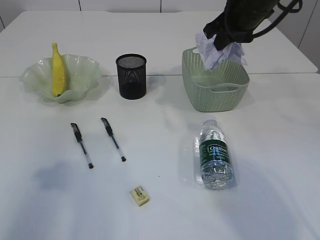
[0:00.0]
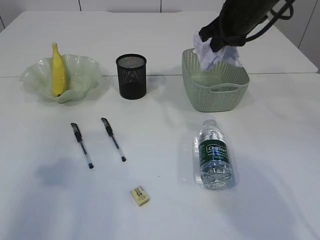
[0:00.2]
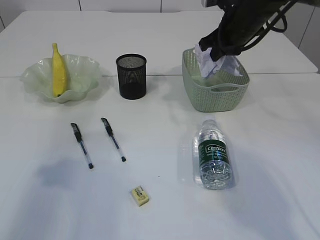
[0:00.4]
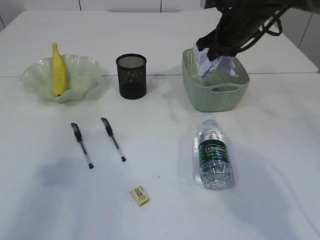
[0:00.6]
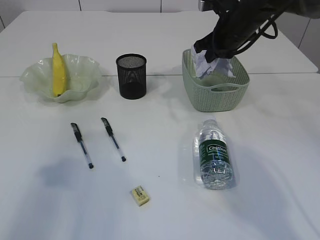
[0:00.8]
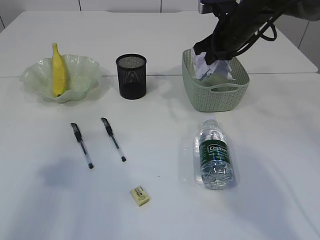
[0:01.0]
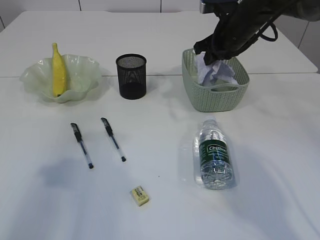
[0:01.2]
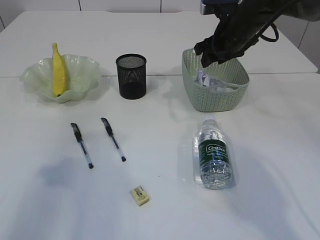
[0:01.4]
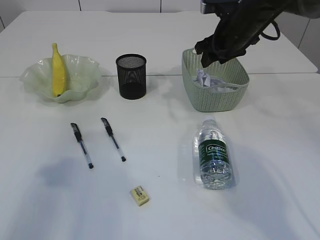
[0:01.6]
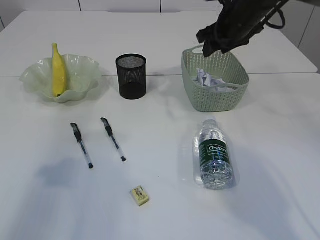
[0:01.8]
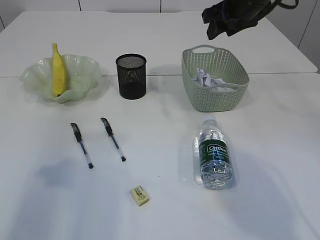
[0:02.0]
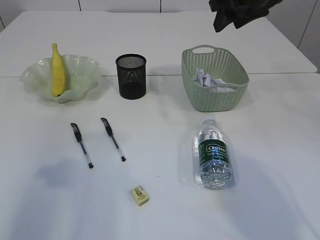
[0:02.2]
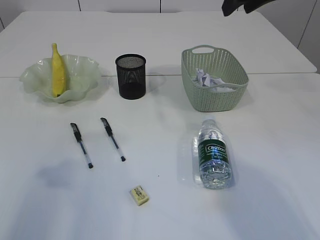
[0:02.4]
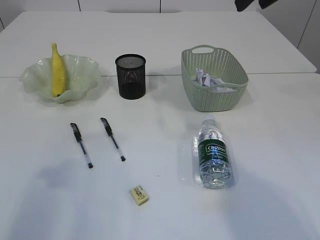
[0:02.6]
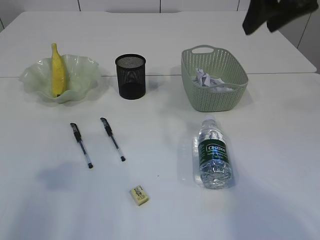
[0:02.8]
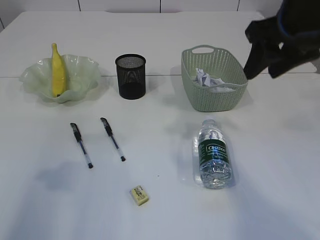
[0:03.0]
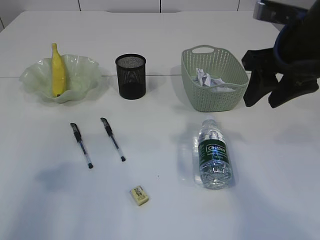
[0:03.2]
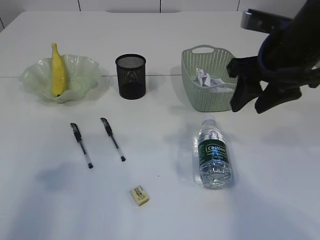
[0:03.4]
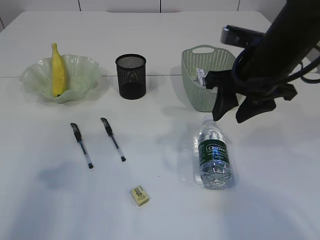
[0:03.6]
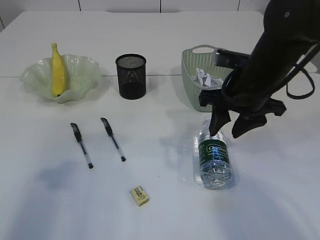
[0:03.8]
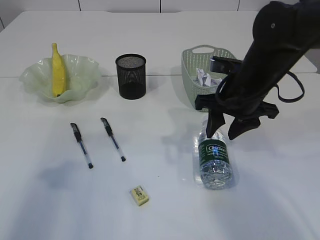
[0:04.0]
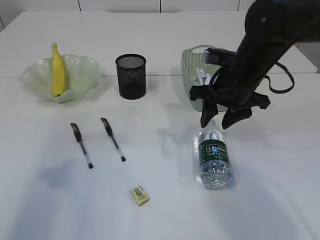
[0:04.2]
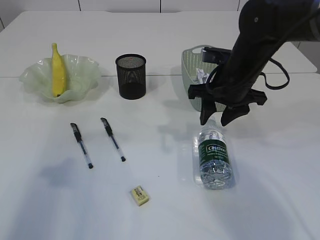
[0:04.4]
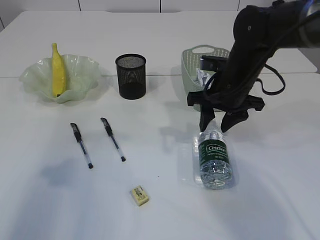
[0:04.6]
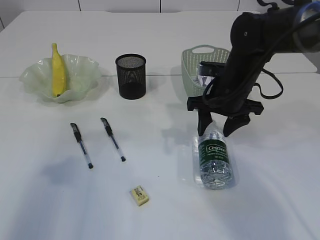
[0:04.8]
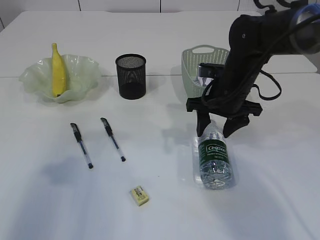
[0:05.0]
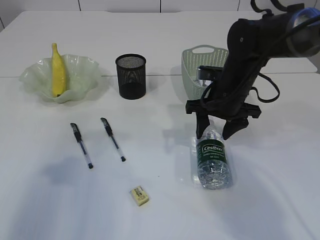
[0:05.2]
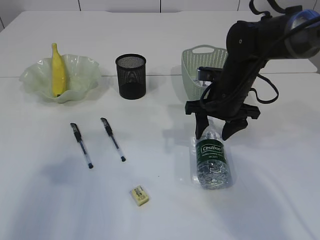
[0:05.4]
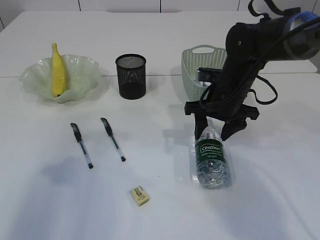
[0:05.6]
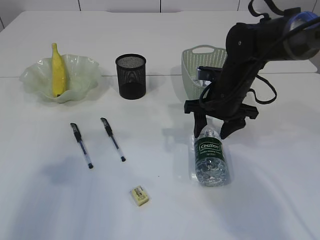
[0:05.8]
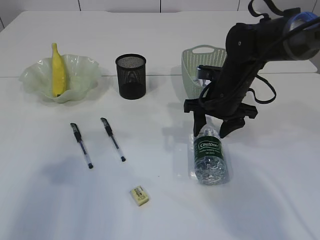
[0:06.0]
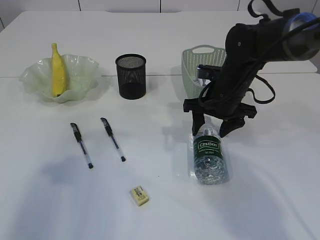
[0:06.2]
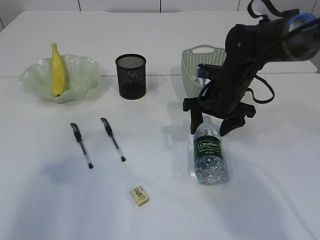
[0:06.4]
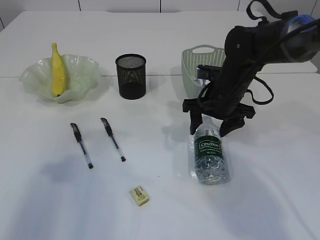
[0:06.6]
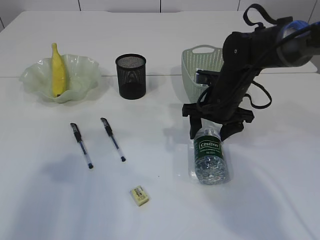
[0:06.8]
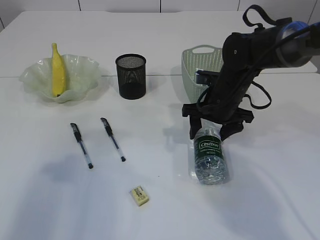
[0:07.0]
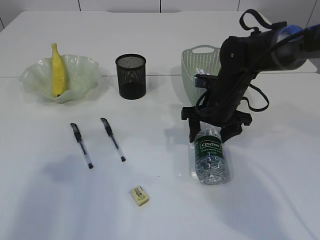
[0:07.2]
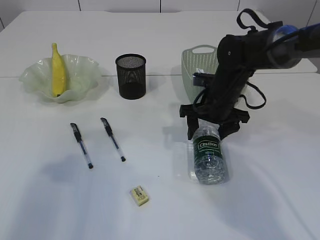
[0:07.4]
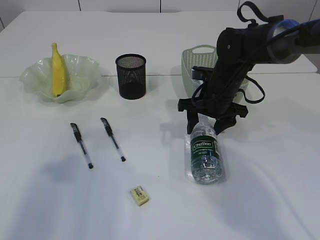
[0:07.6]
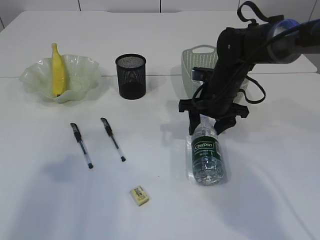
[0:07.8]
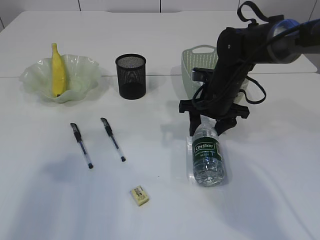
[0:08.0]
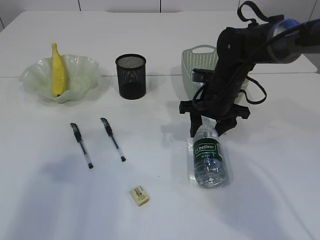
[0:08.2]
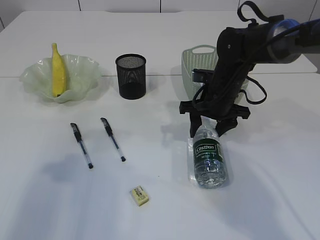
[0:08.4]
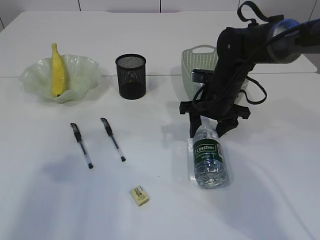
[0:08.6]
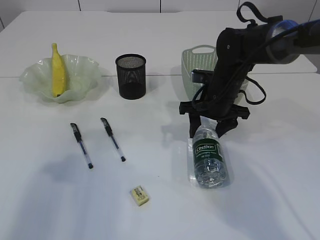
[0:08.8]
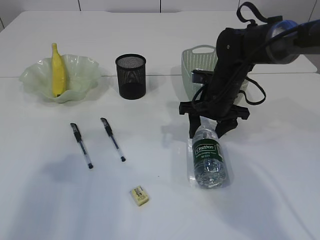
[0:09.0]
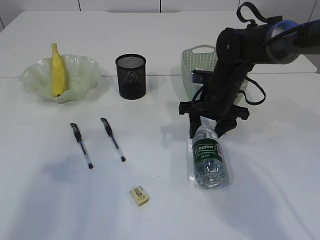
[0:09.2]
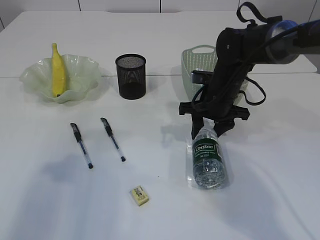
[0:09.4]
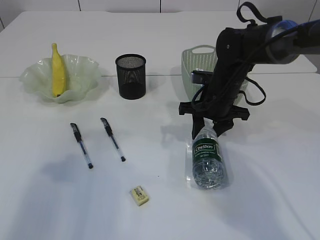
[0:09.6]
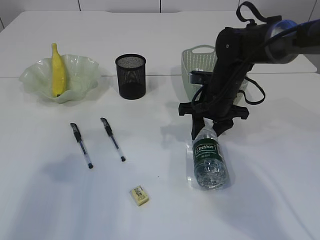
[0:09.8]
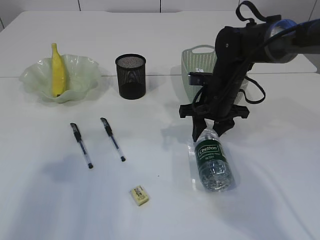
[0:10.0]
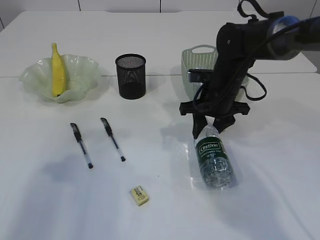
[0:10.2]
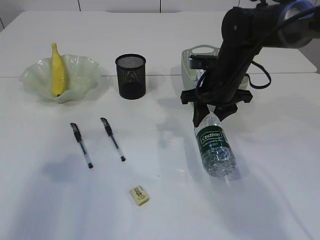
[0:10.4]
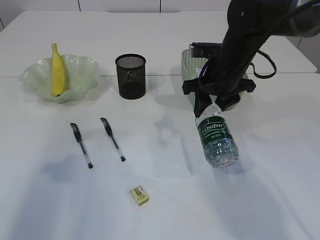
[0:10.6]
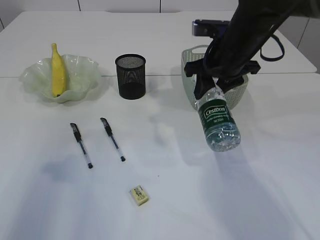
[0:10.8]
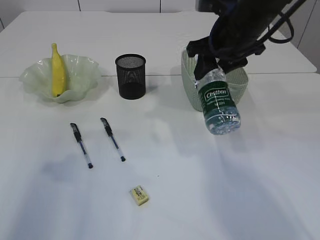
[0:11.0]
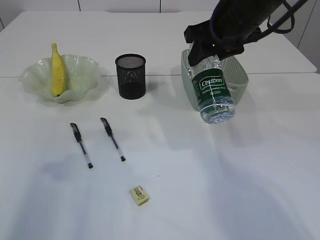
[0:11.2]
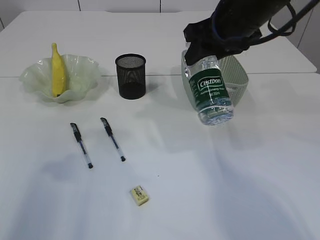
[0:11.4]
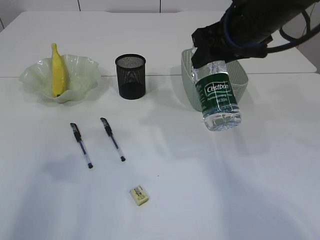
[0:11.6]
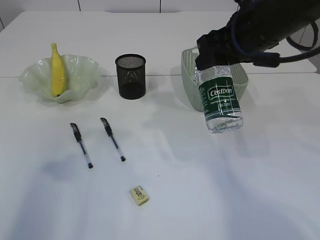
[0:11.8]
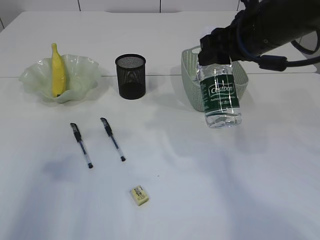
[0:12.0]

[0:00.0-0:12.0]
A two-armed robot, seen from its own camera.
Step, 0:00.0 to 0:01.8: Place the waste paper in the basket.
Step, 0:02.0 to 0:10.8: Pick up the bottle with the right arm.
0:00.0 to 0:01.6: The right gripper goes about 5 cm downward, and opens.
0:01.6 to 0:03.0: The right gripper travels backward and upward by some 20 cm.
0:03.0 to 0:04.4: The right gripper travels downward, forward and to the left by some 15 cm.
0:04.4 to 0:06.0: The grippers make only small movements.
0:06.0 to 0:07.6: The grippers stay close to where they were, moving slightly.
0:07.6 to 0:09.0: The two grippers keep their place.
0:09.0 to 0:10.4: The grippers make only small movements.
0:10.4 to 0:12.0: The right gripper is displaced upward and backward by some 15 cm.

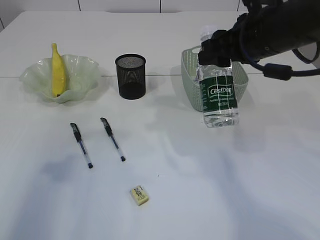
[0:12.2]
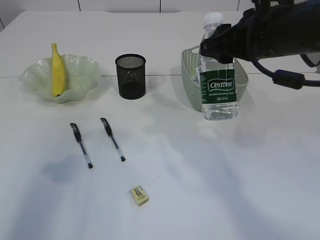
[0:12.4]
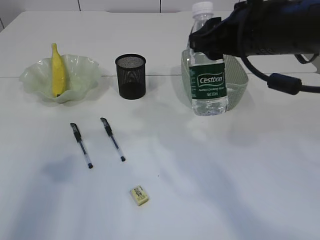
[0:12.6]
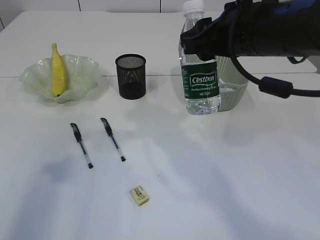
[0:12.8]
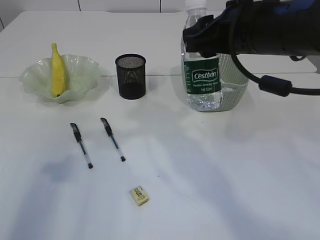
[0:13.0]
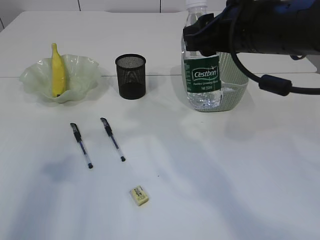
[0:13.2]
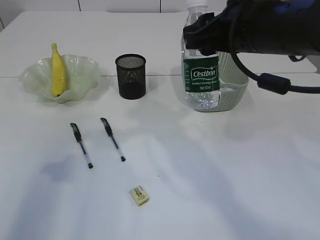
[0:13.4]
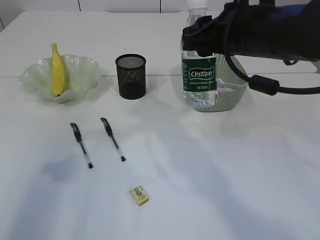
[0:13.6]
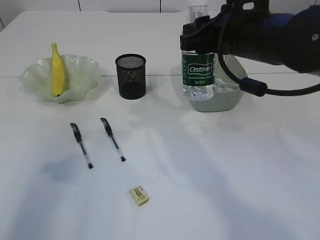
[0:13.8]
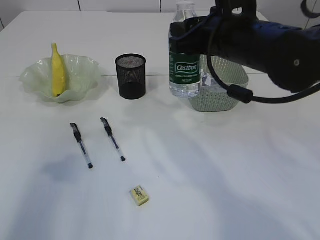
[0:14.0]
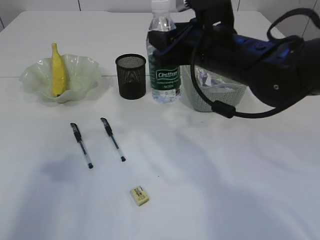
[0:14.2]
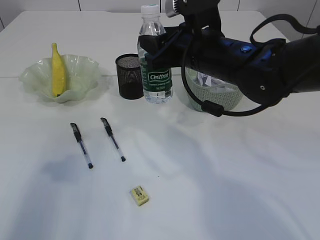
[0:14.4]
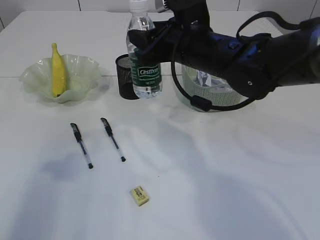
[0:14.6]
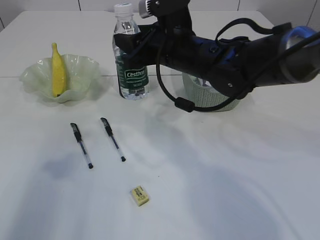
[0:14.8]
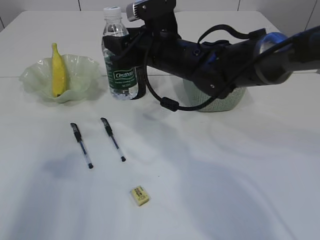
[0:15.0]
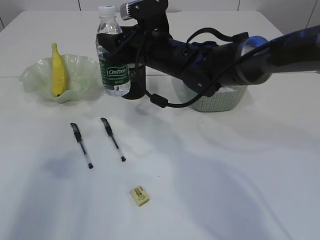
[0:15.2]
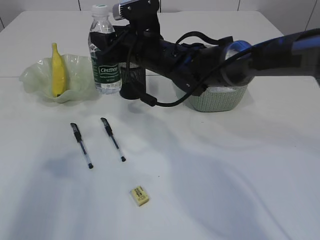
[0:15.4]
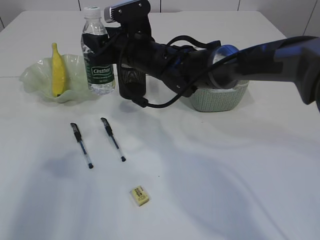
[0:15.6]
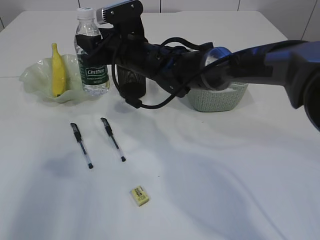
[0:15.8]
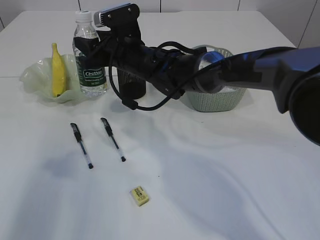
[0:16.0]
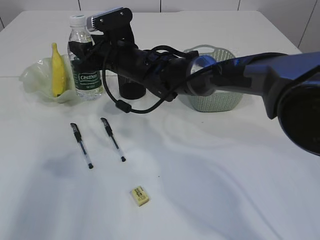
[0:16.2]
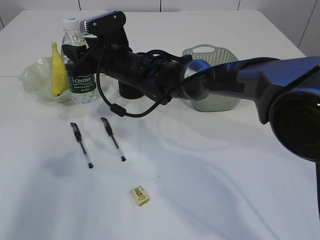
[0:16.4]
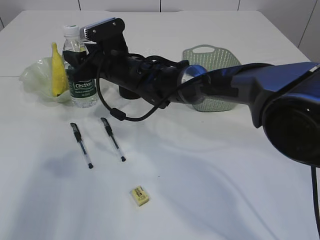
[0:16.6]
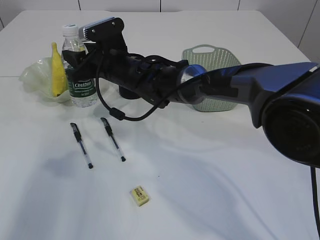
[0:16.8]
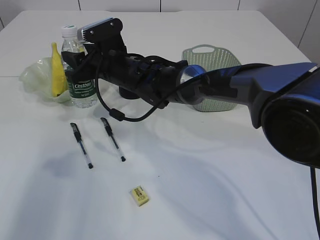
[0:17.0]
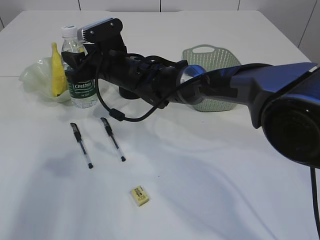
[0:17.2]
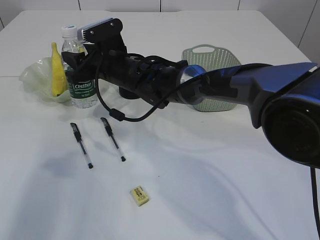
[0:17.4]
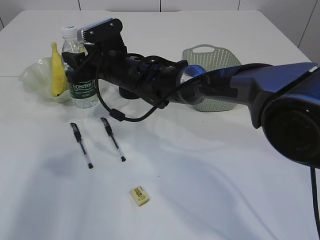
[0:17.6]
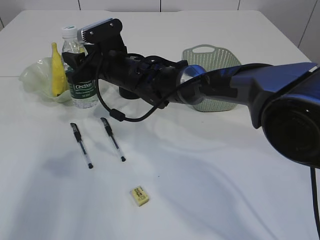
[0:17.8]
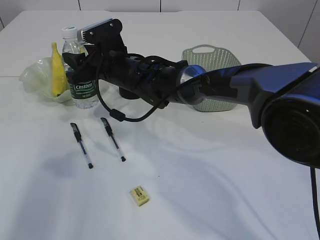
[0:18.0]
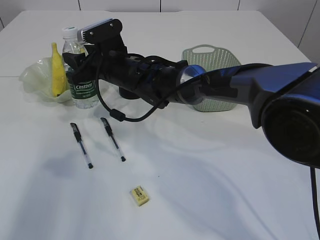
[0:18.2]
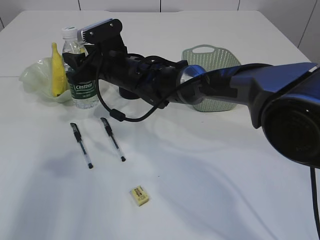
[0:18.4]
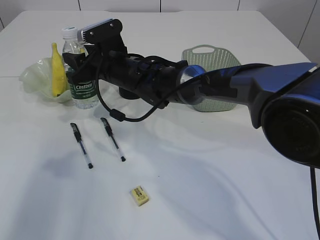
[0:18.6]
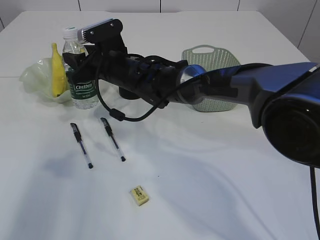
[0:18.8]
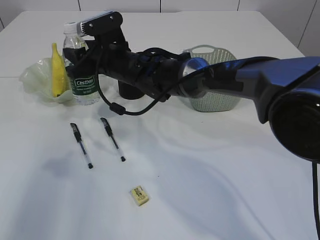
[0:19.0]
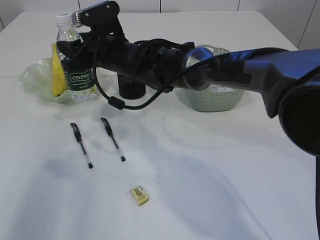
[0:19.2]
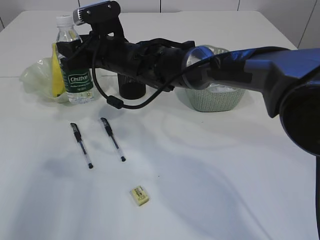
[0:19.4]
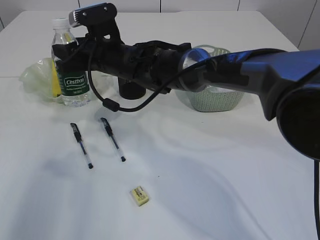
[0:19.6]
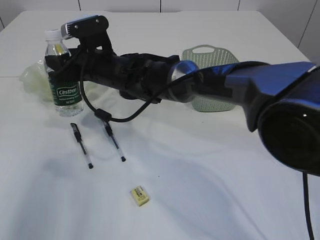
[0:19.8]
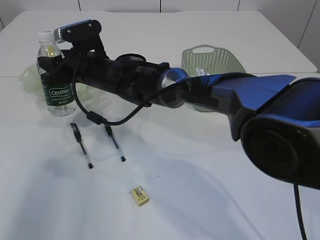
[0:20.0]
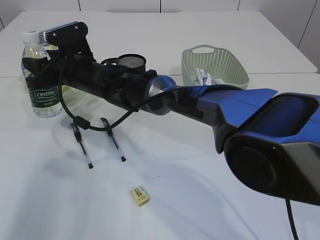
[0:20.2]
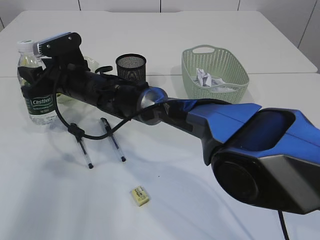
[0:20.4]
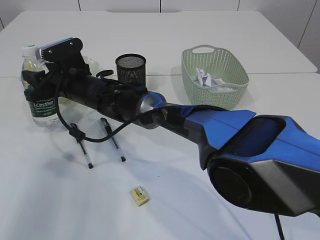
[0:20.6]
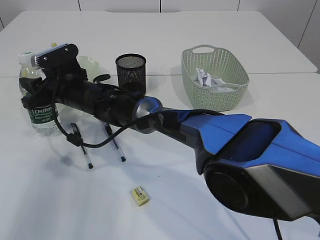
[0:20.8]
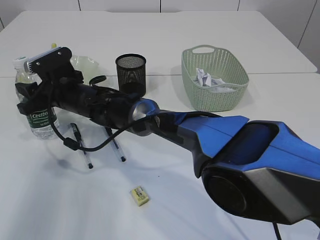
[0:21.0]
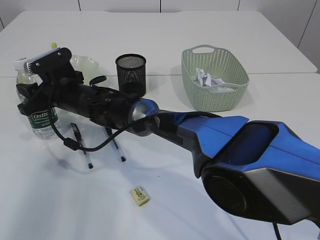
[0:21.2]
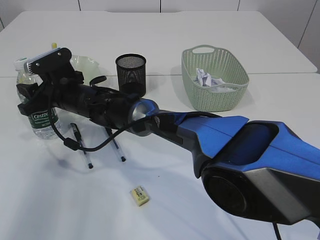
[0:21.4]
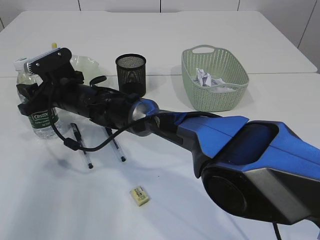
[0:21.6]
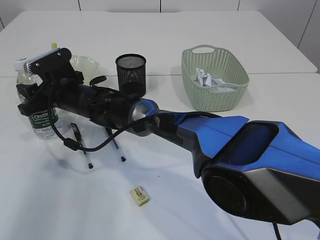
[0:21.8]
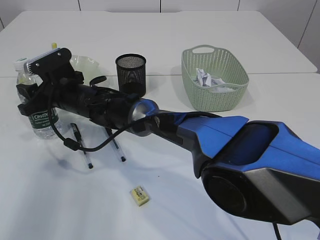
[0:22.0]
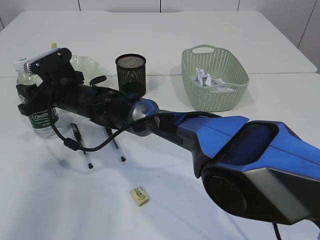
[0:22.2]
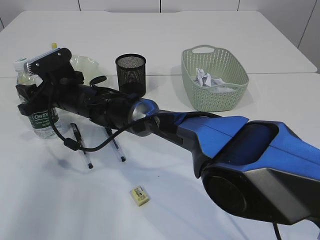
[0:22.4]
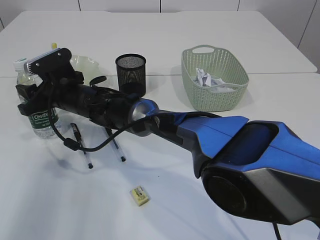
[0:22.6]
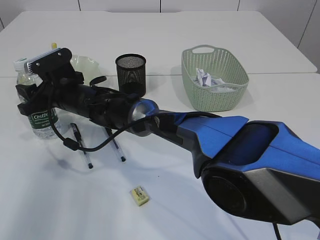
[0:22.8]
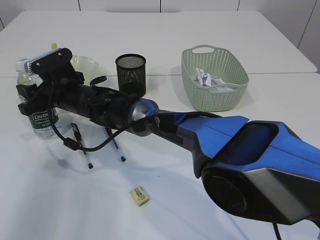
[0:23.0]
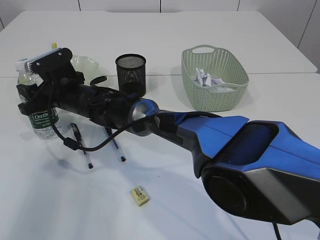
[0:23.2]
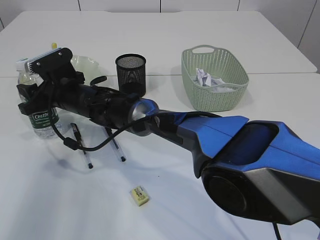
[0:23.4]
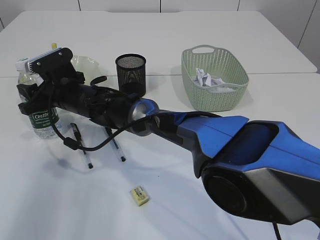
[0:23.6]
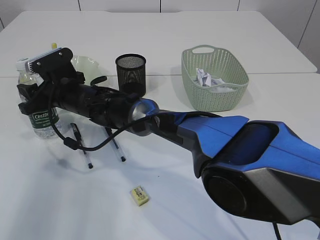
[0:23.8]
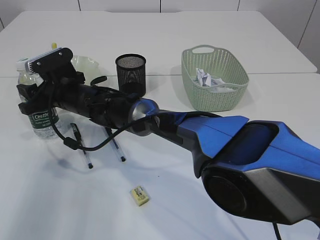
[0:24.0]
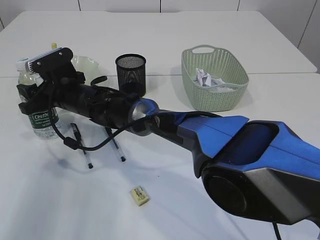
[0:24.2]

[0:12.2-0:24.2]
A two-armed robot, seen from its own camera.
0:13.8 to 0:15.2: The right gripper is displaced to the left, forward and downward by approximately 15 cm.
0:15.2 to 0:16.6: The right gripper shifts approximately 5 cm to the left.
0:16.6 to 0:18.2: Both grippers stay put.
0:18.2 to 0:19.8: There are only small adjustments of the grippers.
0:19.8 to 0:21.2: The right gripper travels to the left by about 5 cm.
0:21.2 to 0:24.2: Neither gripper changes place.
